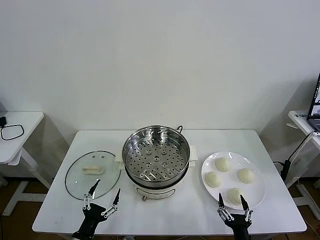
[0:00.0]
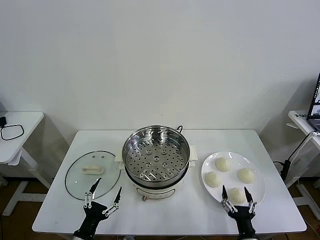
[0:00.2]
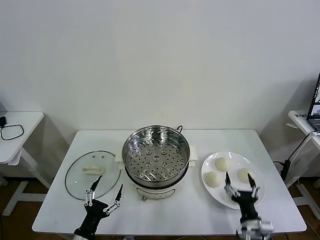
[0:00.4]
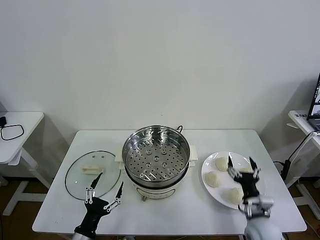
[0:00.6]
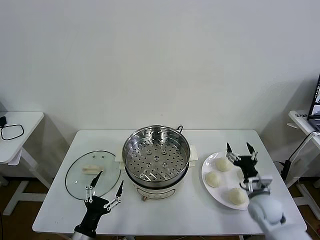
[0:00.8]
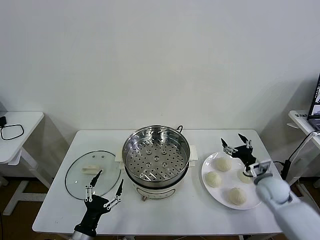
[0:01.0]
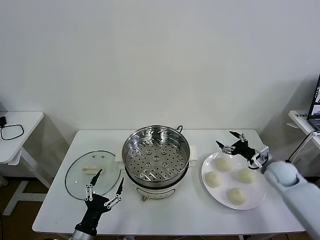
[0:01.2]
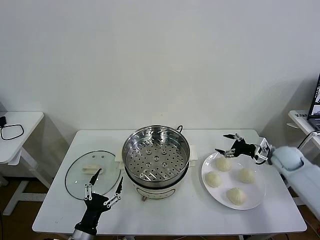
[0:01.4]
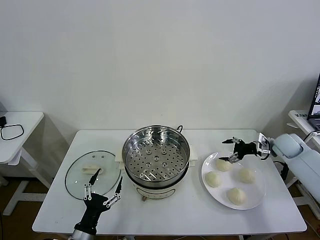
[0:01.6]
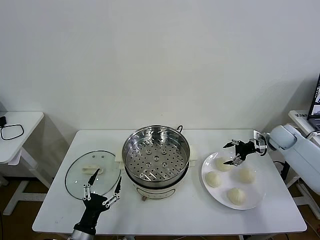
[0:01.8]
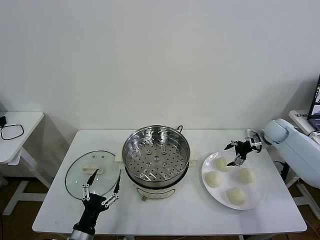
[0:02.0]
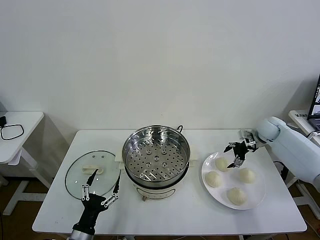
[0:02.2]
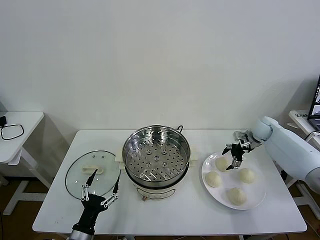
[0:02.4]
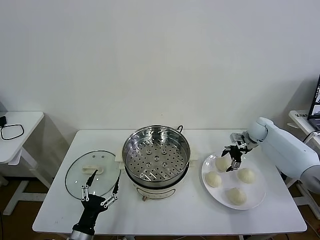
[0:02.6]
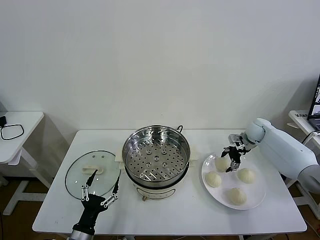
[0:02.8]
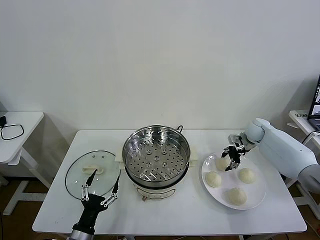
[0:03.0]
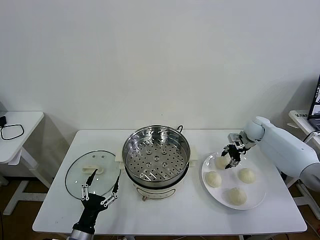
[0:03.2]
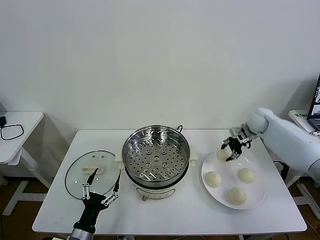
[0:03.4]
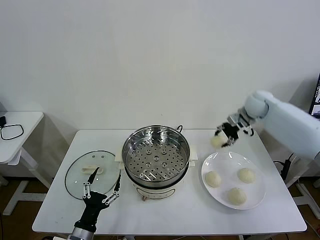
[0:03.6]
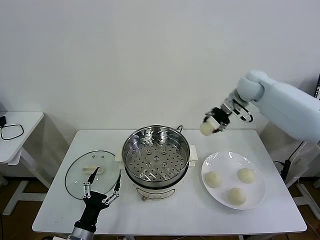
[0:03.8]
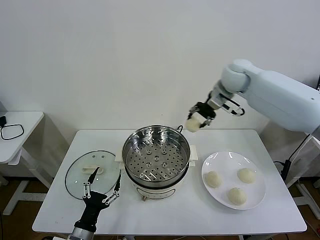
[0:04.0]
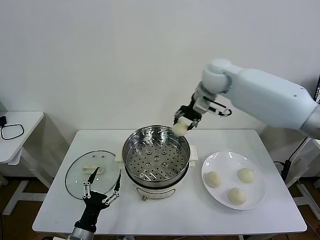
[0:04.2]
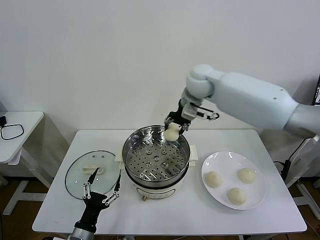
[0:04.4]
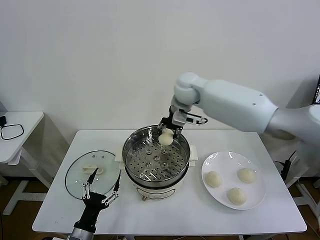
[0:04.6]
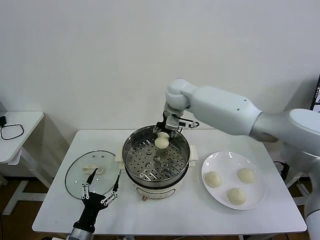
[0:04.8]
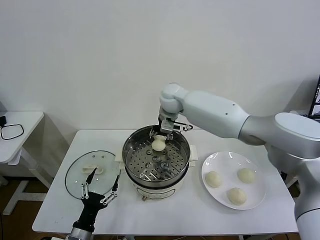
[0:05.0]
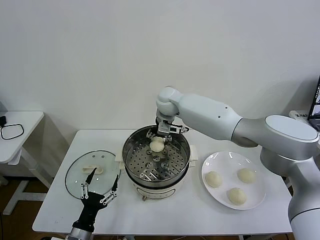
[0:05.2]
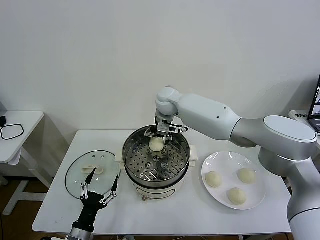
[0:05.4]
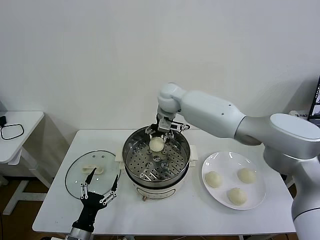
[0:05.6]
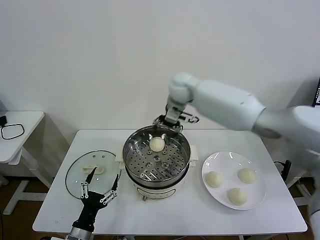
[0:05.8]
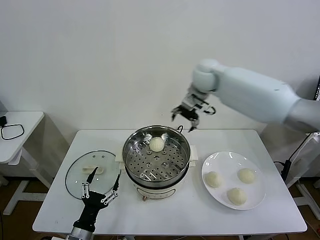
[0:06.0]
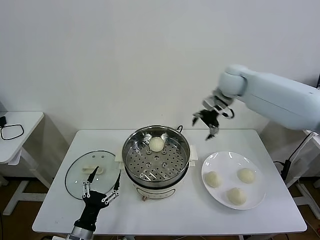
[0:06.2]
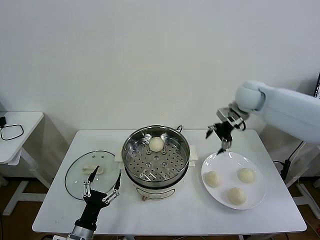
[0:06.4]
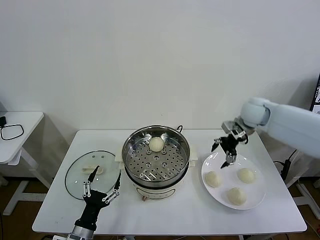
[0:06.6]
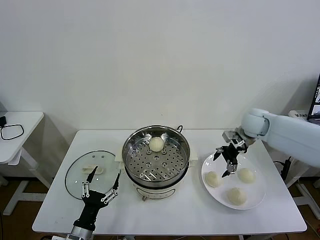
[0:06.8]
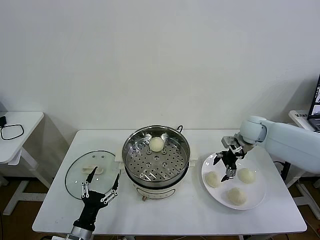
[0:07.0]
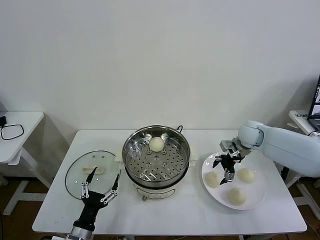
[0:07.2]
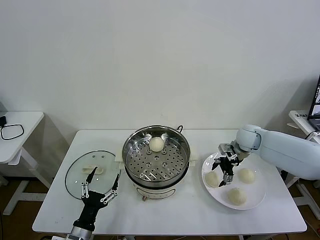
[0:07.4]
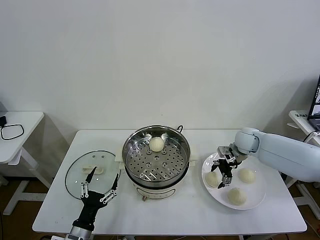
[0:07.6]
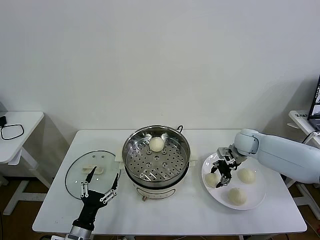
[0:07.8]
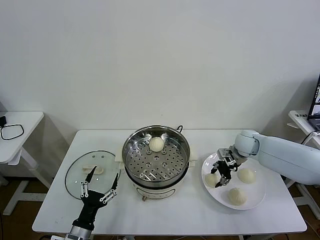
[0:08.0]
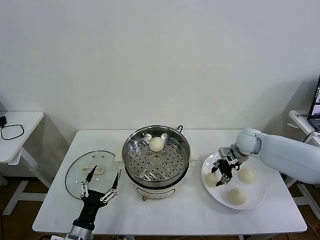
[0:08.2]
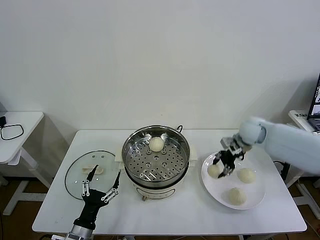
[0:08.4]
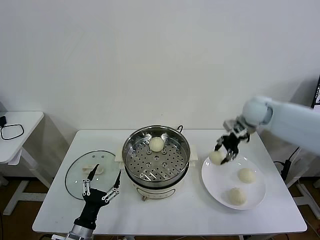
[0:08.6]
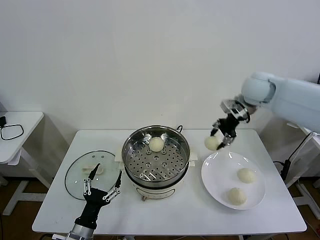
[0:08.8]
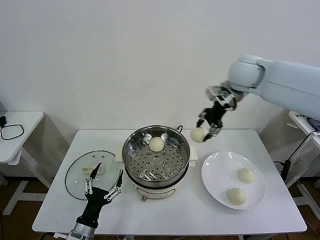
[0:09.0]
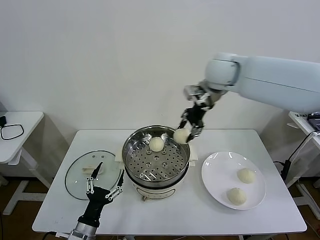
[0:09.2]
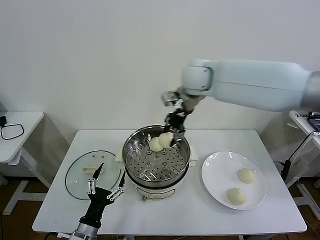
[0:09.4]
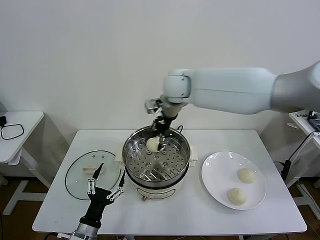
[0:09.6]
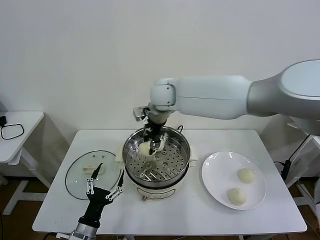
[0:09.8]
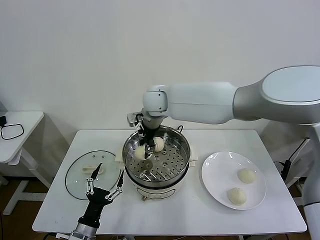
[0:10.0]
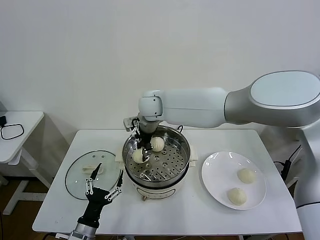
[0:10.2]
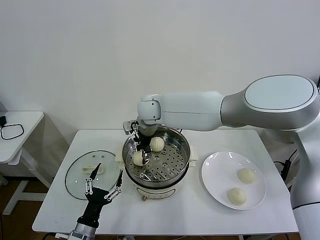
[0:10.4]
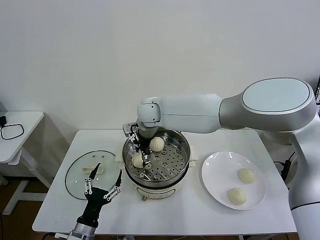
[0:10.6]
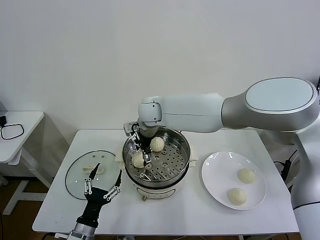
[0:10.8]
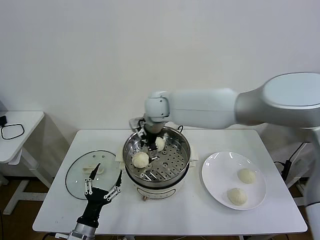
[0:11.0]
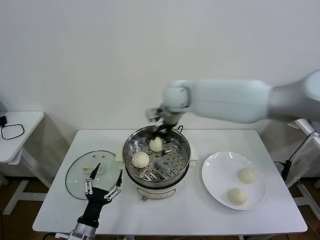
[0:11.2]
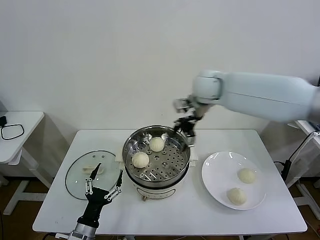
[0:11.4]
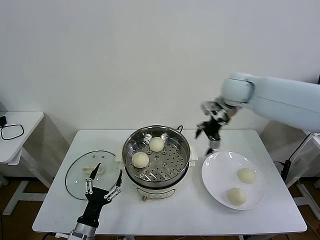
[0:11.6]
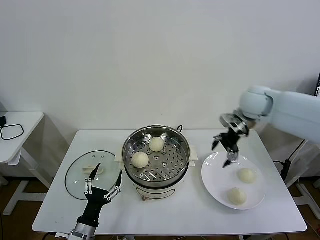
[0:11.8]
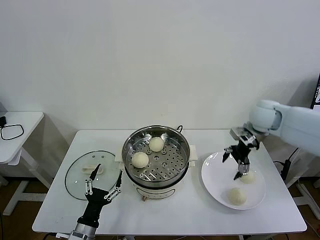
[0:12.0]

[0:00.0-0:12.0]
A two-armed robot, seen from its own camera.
Task of the whole recording: take steamed baozi put them in steamer then cover it.
Step, 0:00.0 to 0:03.0: Grasp the baozi in the plate with right gripper.
Step, 0:03.4 to 0:05.2: Place the baozi on the steamer with right gripper.
Step, 0:05.6 to 0:08.0: Grasp the baozi in the plate with right gripper.
Step, 0:08.2 to 0:10.8: Place the baozi on the steamer with right gripper.
0:01.6 to 0:03.0: The right gripper moves forward and to the left, some 10 cm, and closes its fingers.
0:03.0 to 0:04.4: The right gripper heads to the left and upward, covering roughly 35 cm.
0:04.4 to 0:06.0: The right gripper shifts some 10 cm to the right, and opens up.
0:06.0 to 0:07.6: The right gripper shifts roughly 25 cm downward and to the right.
0:07.6 to 0:09.0: The right gripper heads upward and to the left, covering about 30 cm, and closes.
0:09.0 to 0:10.4: The right gripper goes some 30 cm to the left and downward.
0:10.4 to 0:12.0: The right gripper travels to the right by approximately 35 cm, and opens its fingers.

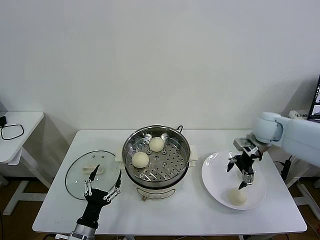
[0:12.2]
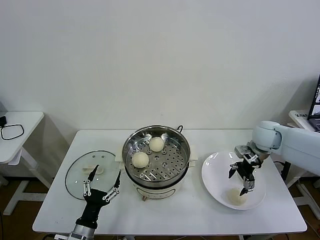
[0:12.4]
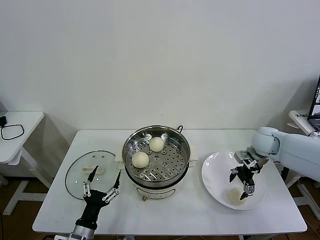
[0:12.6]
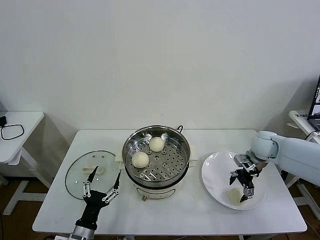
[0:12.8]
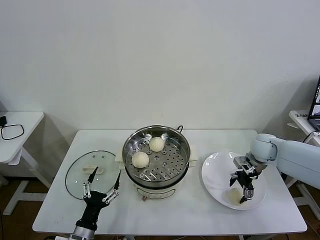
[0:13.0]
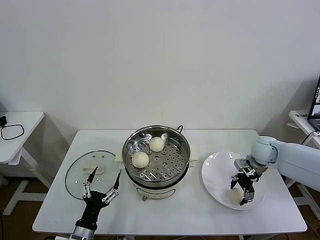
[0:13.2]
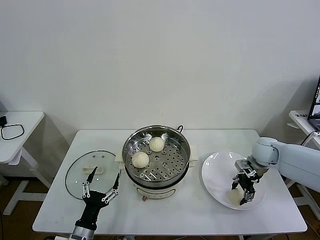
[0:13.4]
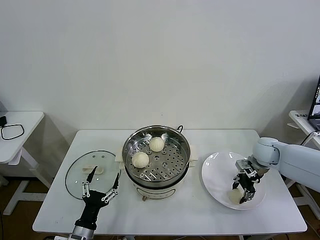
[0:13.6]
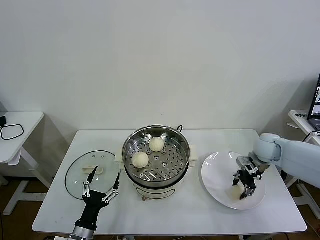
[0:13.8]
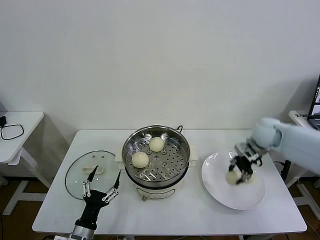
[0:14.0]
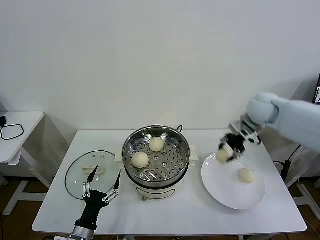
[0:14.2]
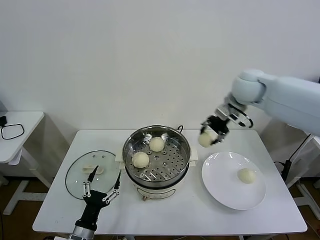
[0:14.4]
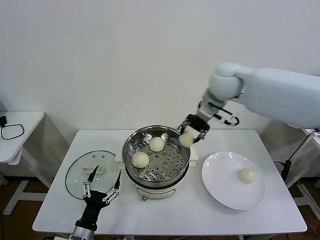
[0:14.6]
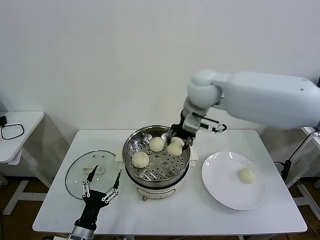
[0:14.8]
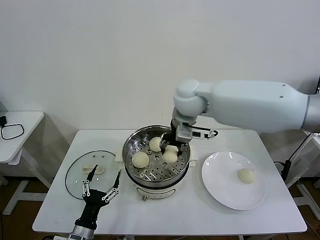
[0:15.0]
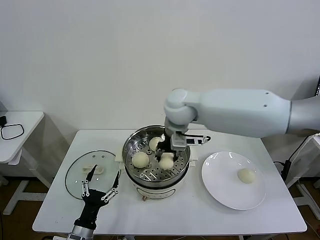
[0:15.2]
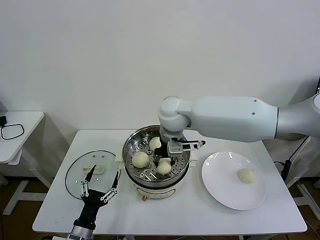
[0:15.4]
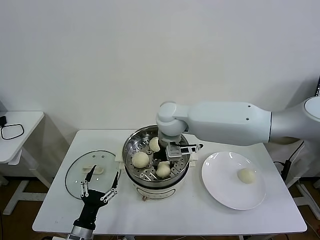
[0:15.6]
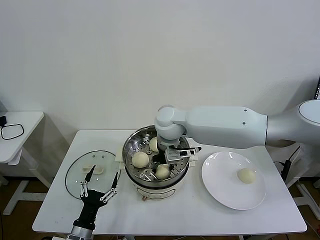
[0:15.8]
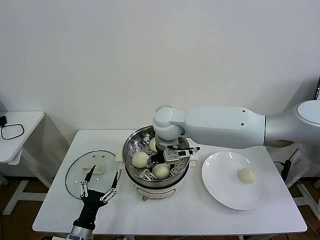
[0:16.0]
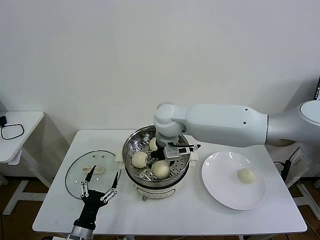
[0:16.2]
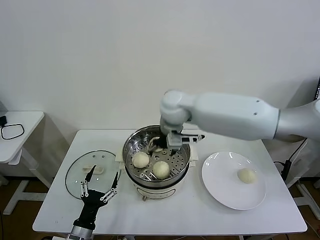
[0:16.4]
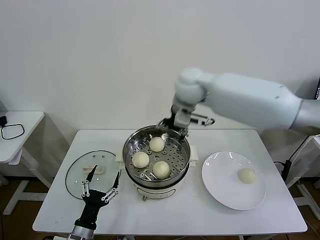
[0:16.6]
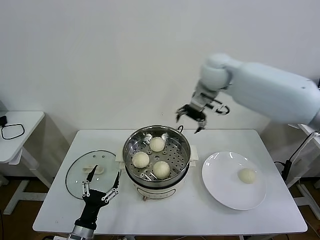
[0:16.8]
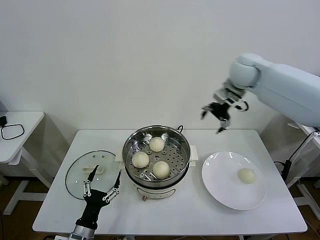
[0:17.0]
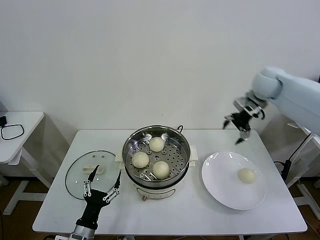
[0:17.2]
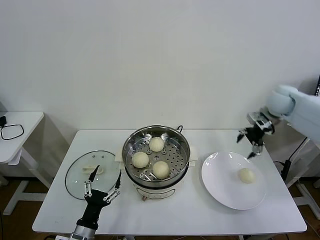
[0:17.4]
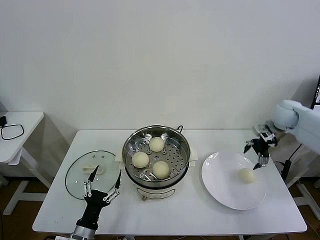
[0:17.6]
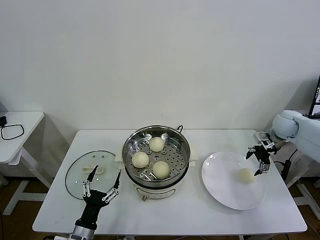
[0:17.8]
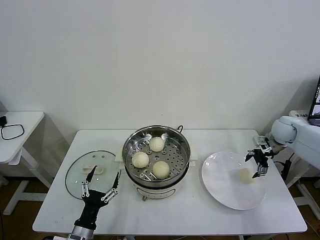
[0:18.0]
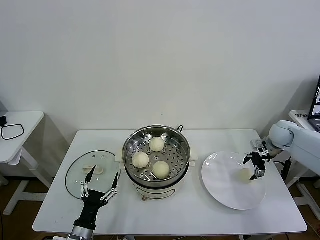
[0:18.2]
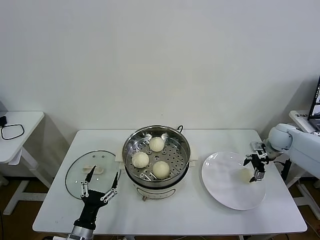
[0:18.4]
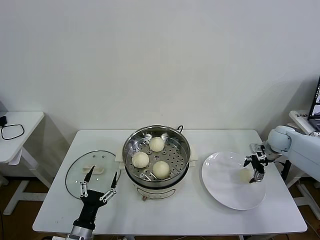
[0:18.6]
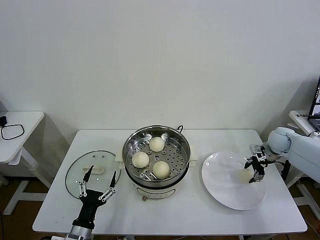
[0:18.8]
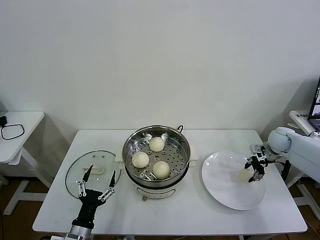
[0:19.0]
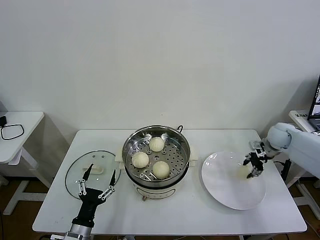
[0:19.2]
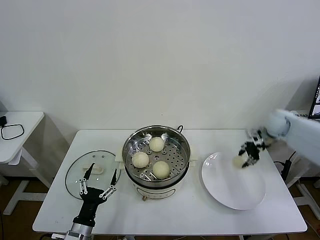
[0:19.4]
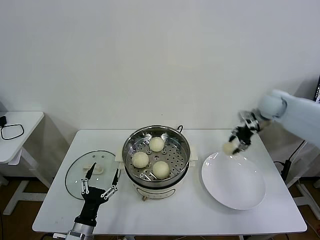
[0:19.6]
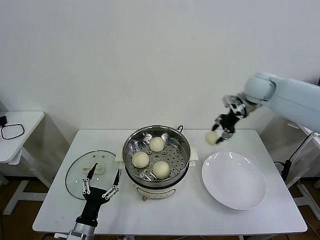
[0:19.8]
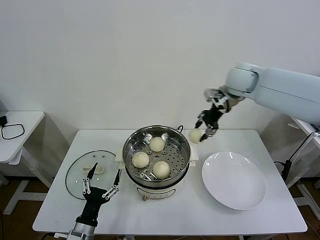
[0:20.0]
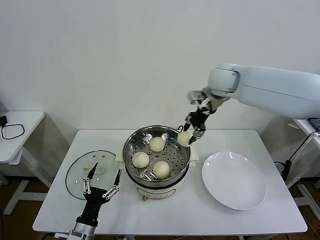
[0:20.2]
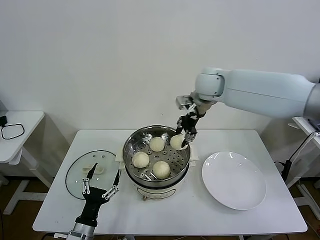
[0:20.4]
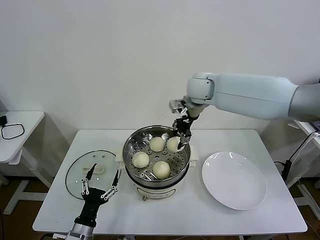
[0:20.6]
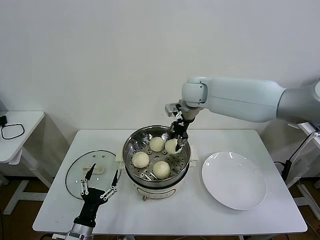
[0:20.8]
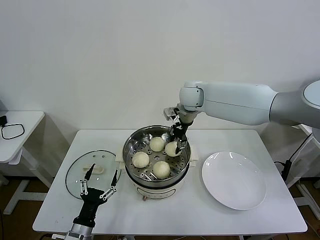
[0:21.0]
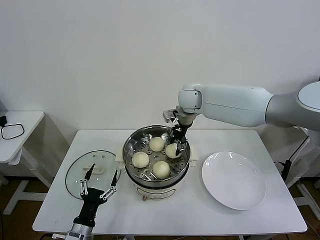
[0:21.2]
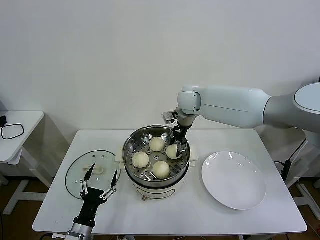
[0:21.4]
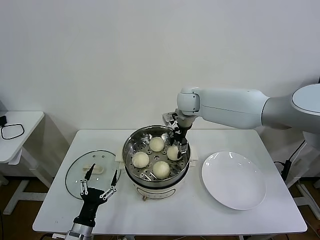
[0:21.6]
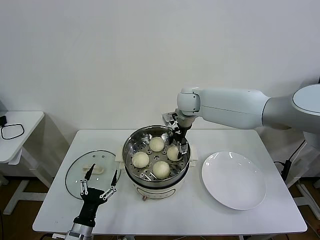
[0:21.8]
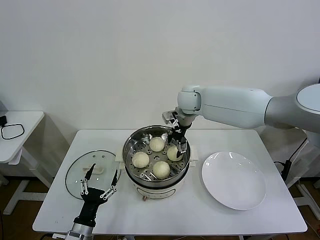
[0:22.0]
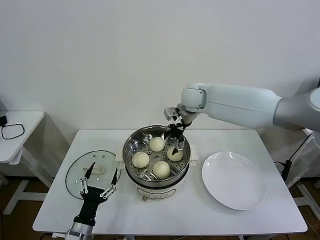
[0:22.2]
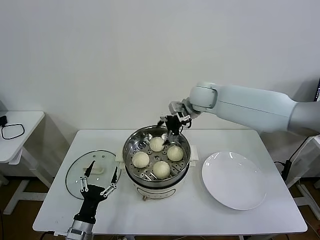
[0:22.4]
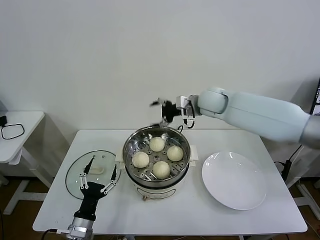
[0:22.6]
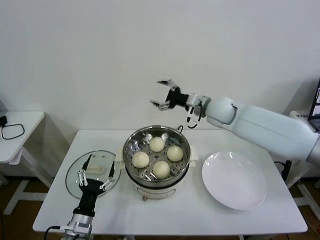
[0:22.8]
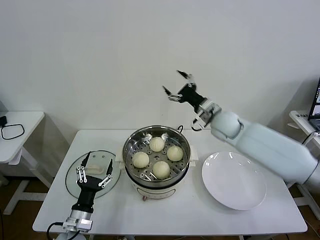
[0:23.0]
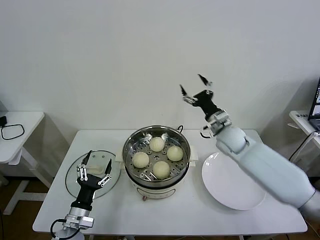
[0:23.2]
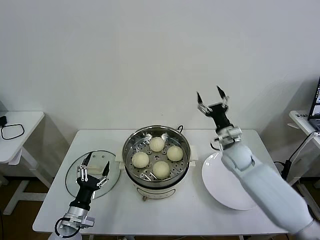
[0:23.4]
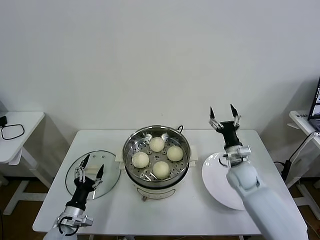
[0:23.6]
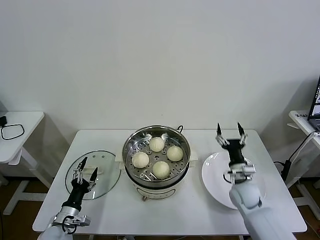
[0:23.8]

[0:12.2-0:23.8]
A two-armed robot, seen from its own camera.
Task of the whole recording: take steamed baozi put them in steamer then cover it.
Step, 0:12.2 to 0:13.6: Grasp the baozi in the plate with right gripper.
Step, 0:13.8 to 0:16.2: Place the baozi on the steamer with right gripper.
Step, 0:16.4 to 0:19.0: Grasp the baozi in the plate with right gripper.
Step, 0:19.2 to 0:22.0: Place the baozi on the steamer with right gripper.
0:12.2 to 0:13.6: The right gripper is displaced downward by roughly 10 cm, and closes up.
0:13.6 to 0:15.0: The right gripper heads to the left and upward, covering approximately 35 cm.
0:15.0 to 0:16.6: The right gripper reaches some 5 cm downward, then returns, and opens.
0:16.6 to 0:18.0: The right gripper travels to the right and downward by about 40 cm.
0:18.0 to 0:19.4: The right gripper changes place by some 5 cm, and closes its fingers.
0:19.4 to 0:21.0: The right gripper goes some 30 cm to the left.
0:21.0 to 0:22.4: The right gripper opens up.
0:22.4 to 0:23.8: The left gripper is displaced to the left and forward by about 10 cm, while the right gripper shifts about 40 cm downward, backward and to the right.
